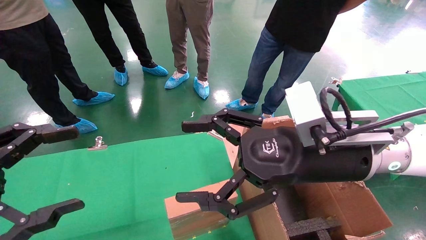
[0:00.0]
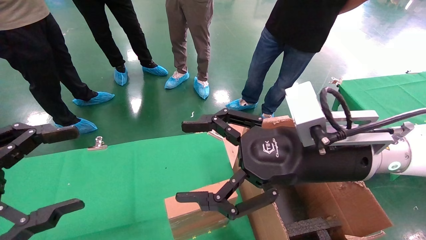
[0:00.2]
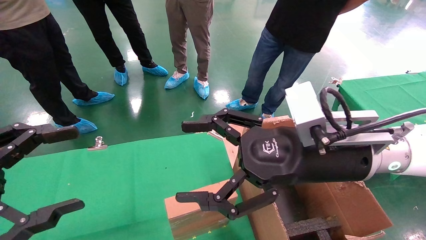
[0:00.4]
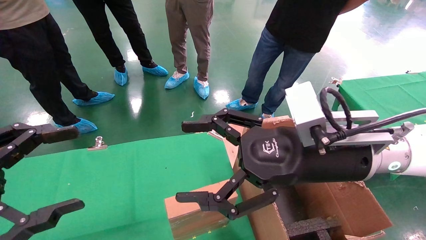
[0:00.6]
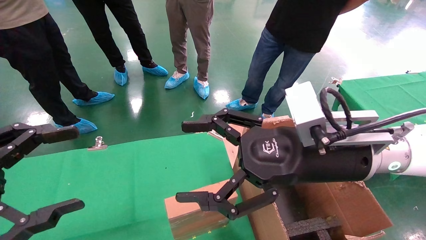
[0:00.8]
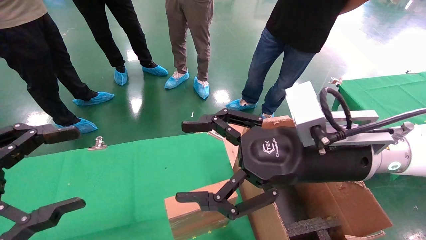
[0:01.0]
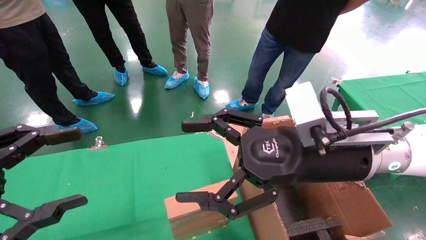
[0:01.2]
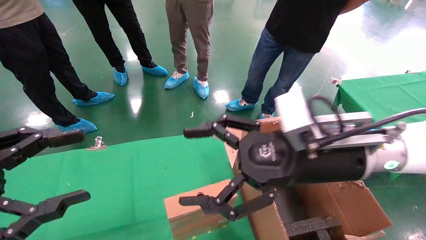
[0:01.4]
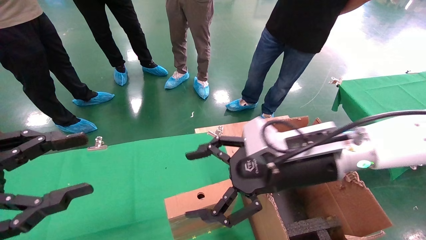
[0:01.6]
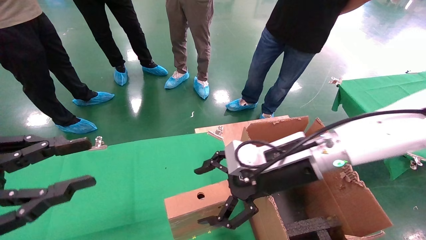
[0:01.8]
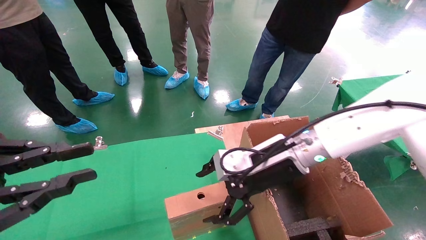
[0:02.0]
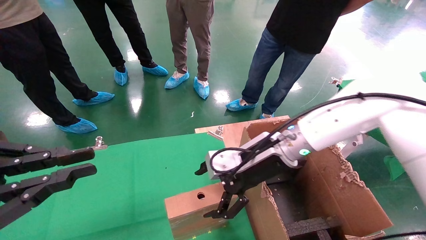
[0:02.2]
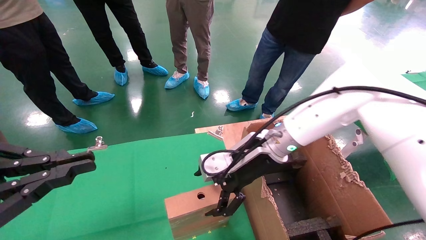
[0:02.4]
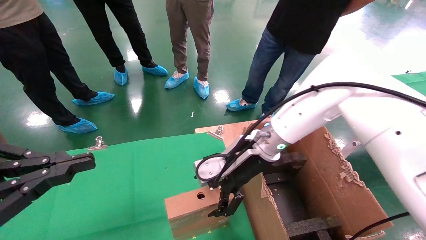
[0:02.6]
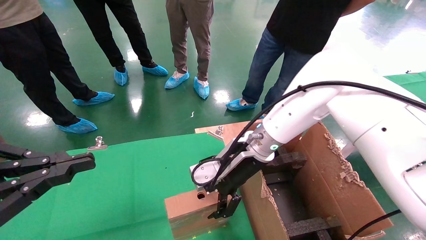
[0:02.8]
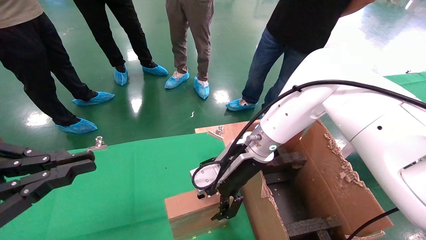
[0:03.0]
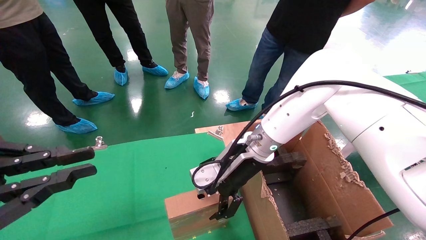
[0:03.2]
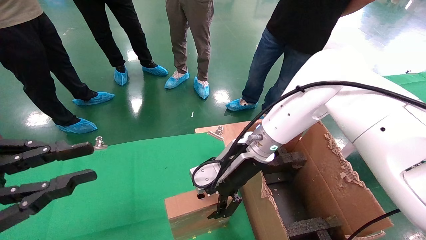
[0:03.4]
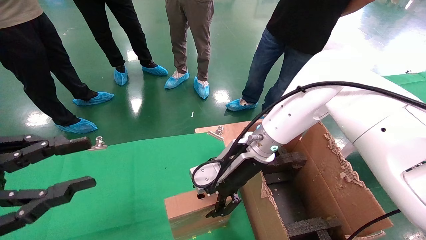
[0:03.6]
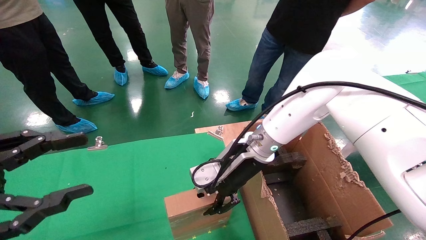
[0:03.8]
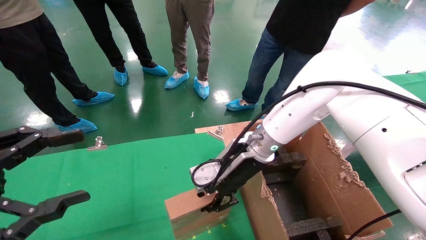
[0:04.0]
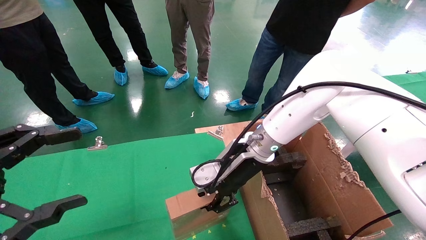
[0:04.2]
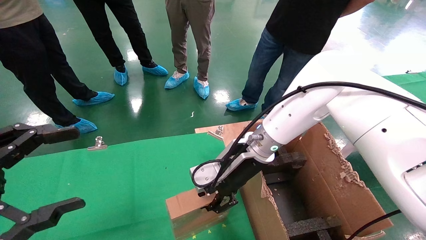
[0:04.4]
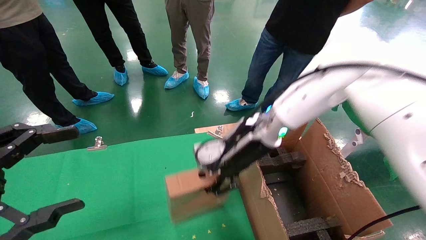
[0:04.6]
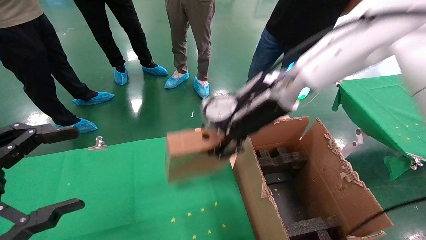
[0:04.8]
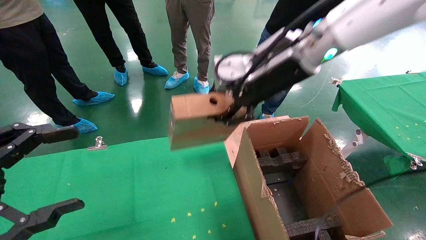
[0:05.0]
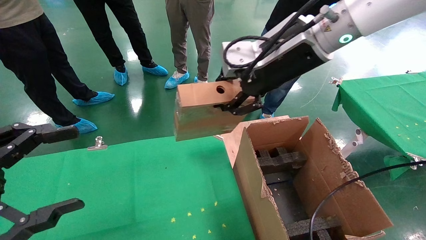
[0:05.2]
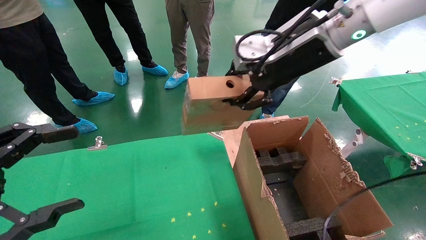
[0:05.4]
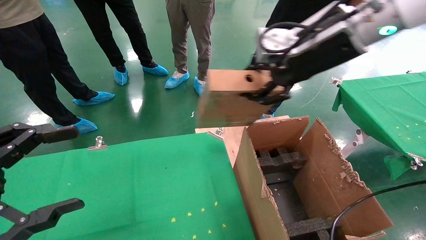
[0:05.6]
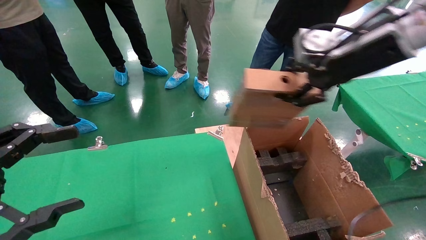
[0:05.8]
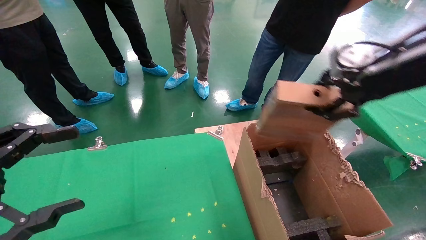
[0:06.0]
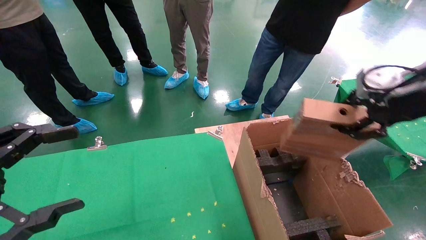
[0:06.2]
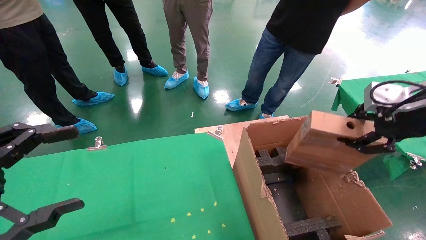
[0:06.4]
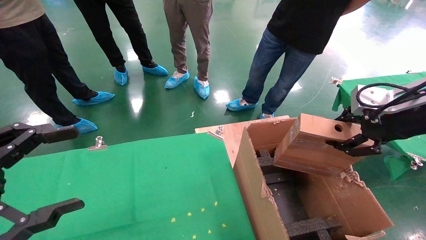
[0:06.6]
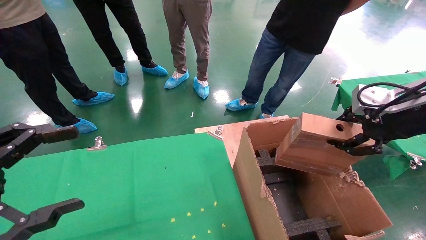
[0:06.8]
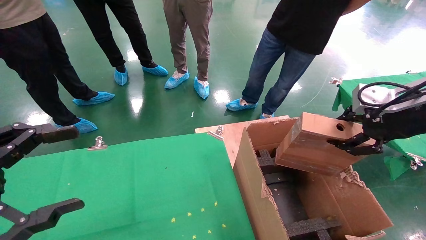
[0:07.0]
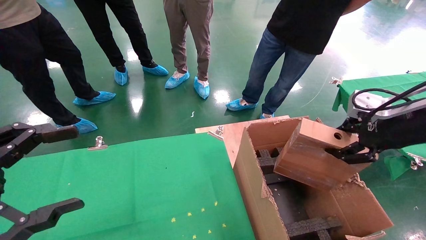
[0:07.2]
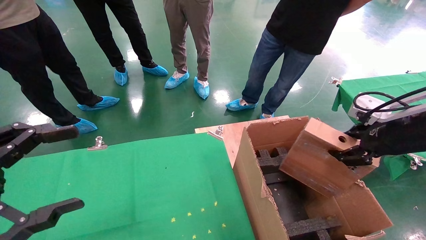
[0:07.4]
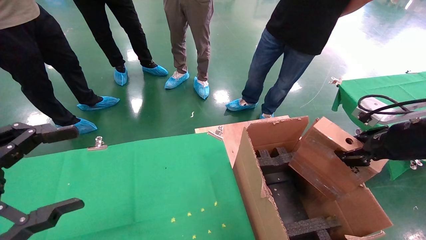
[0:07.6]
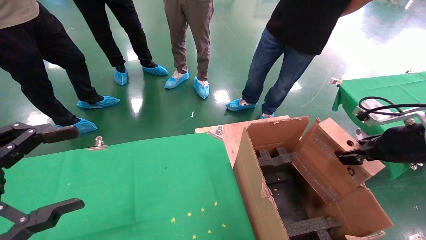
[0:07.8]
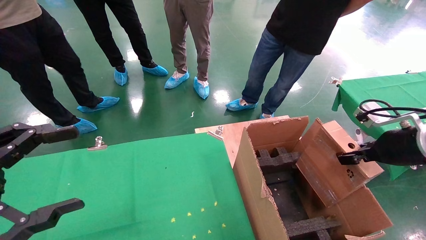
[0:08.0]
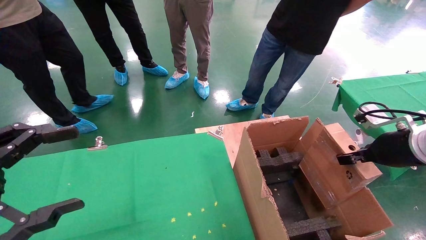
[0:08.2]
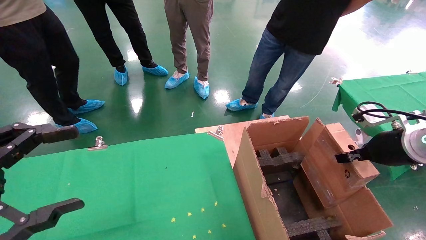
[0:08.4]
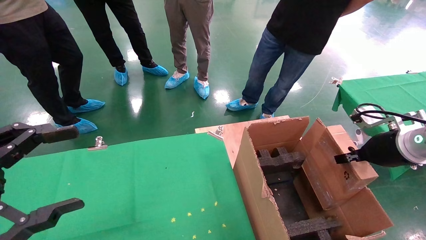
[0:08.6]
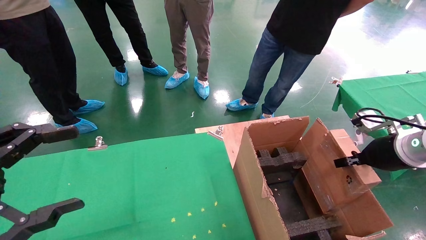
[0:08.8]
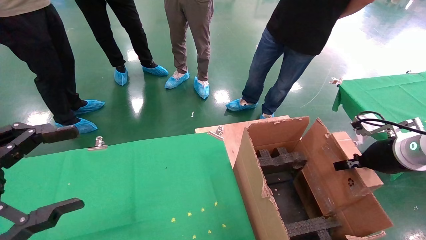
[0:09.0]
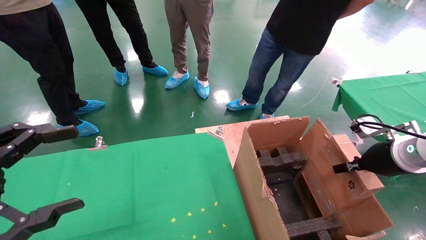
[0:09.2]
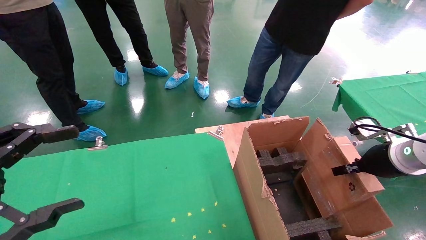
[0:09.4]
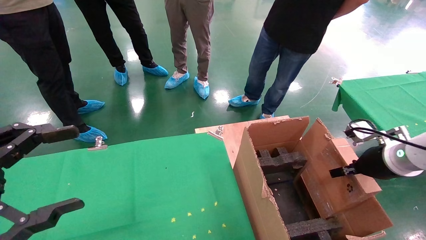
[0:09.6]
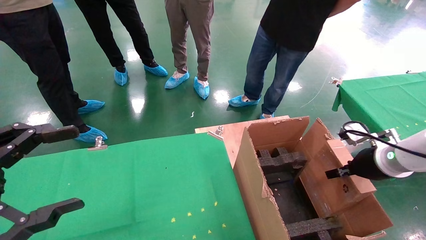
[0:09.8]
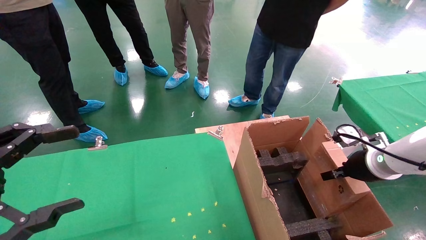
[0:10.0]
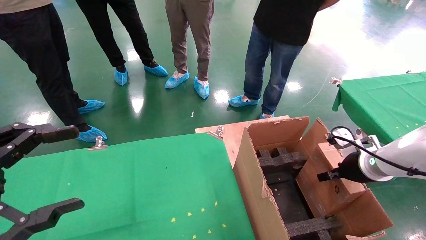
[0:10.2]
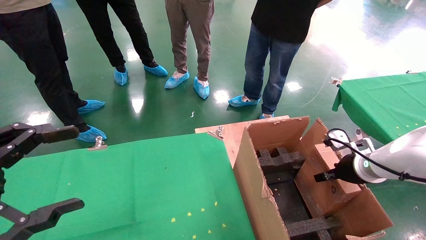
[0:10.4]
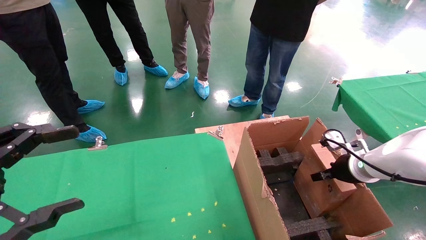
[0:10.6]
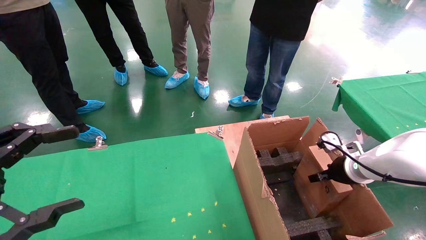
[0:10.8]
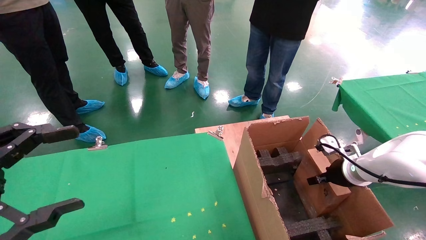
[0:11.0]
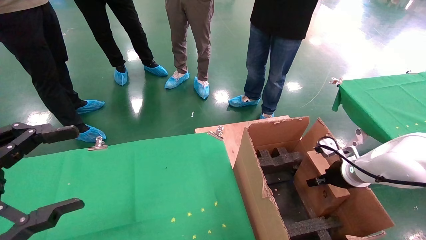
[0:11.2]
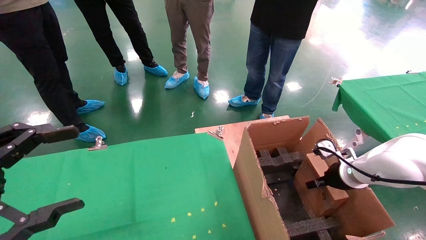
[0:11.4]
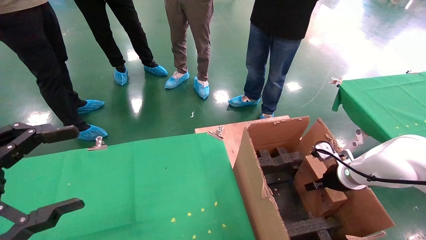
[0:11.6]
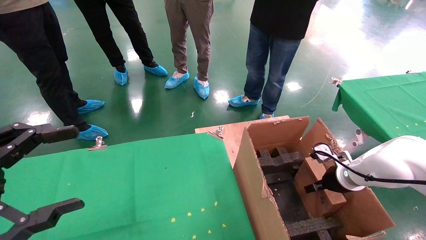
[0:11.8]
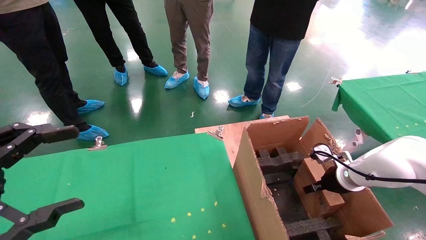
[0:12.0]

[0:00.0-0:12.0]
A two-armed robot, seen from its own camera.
Task of the whole recording: using a robotic arm to pick up a cardboard box and palace it the carton.
Step, 0:01.6 to 0:04.0: Pick up the mouse and the power cord paper box.
0:00.0 to 0:01.6: The right gripper shifts by approximately 5 cm.
0:01.6 to 0:03.0: The left gripper closes its fingers, while the right gripper moves forward and to the left, some 10 cm.
0:03.0 to 0:04.4: The left gripper opens its fingers. Meanwhile the right gripper closes its fingers.
0:04.4 to 0:06.0: The right gripper moves to the right, upward and backward, some 30 cm.
0:06.0 to 0:07.6: The right gripper goes roughly 15 cm downward and to the right.
0:07.6 to 0:09.0: The right gripper shifts approximately 5 cm downward.
0:09.0 to 0:10.4: The right gripper heads downward and forward, covering about 10 cm.
0:10.4 to 0:12.0: The right gripper shifts about 5 cm downward.

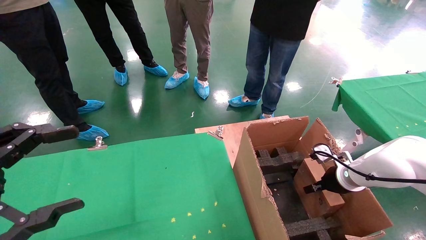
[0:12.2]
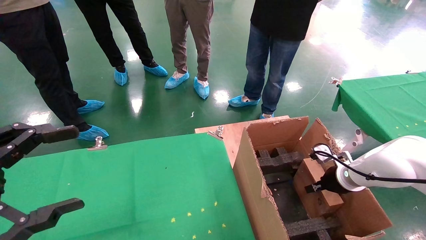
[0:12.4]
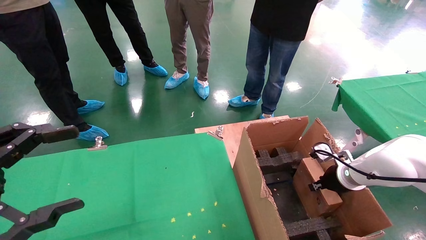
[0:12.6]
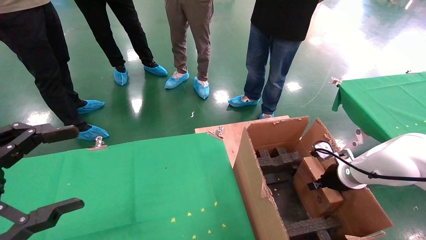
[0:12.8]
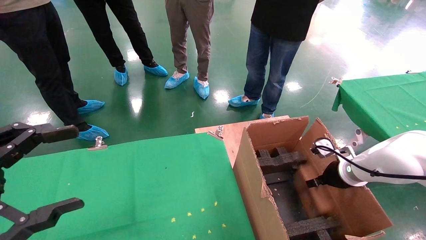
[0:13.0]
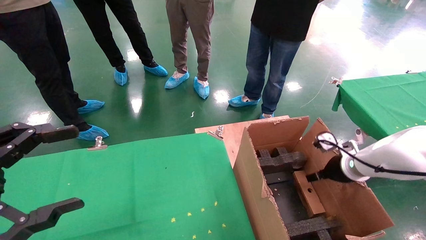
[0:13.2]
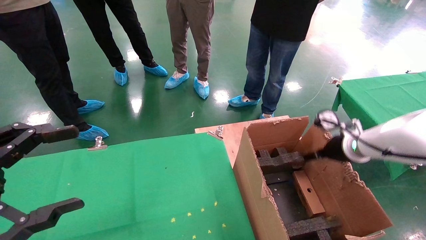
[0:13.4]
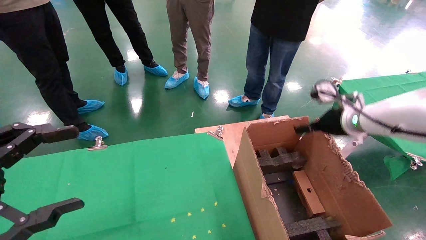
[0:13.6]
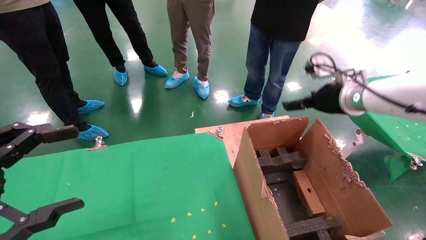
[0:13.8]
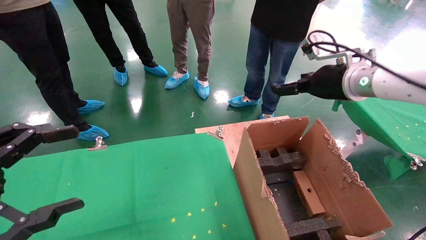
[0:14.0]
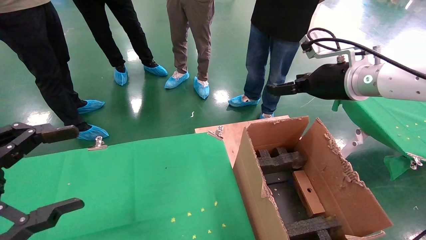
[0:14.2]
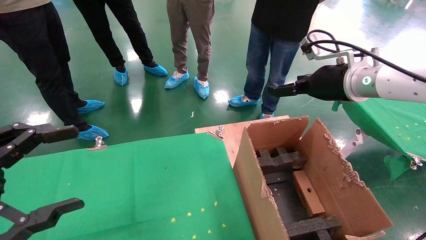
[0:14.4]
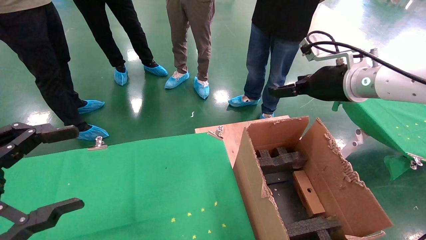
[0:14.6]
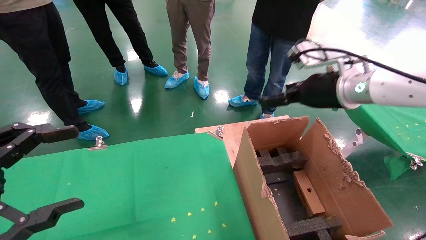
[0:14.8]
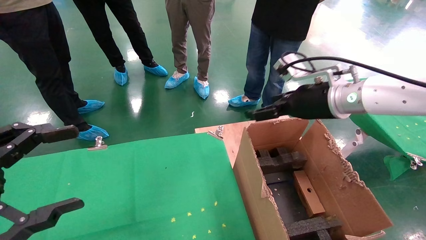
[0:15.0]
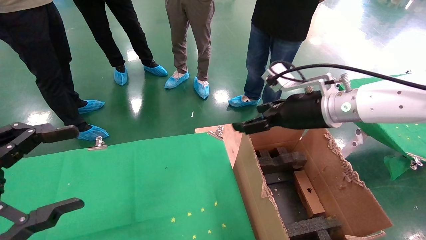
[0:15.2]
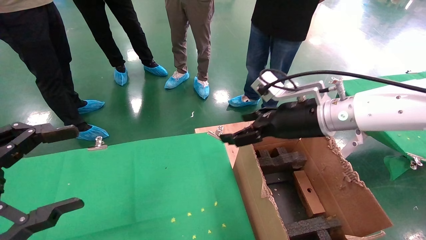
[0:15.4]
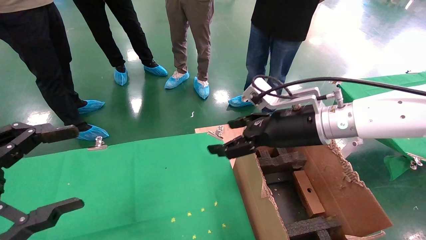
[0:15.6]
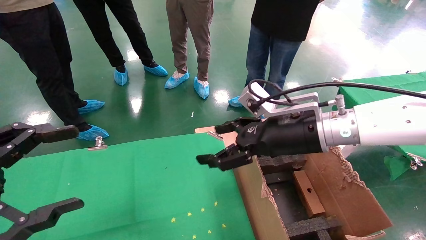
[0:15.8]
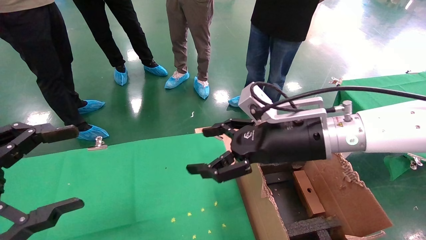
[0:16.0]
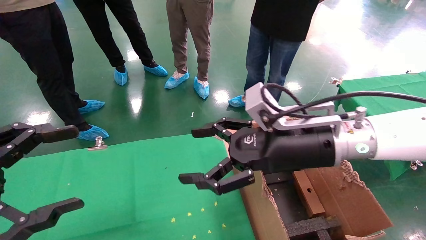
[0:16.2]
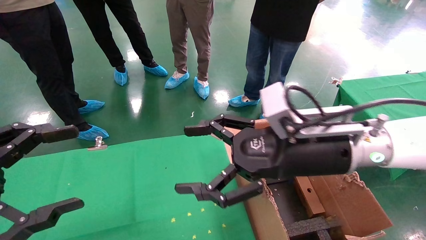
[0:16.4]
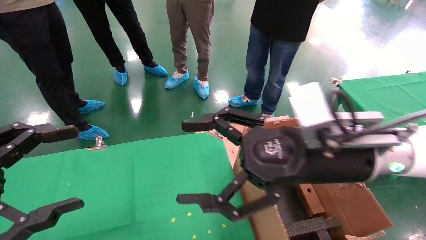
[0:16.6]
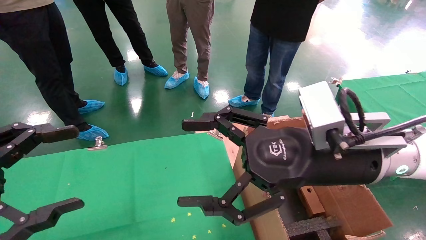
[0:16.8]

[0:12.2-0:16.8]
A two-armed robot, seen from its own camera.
Task of the whole recording: using a robotic arm to pick up a cardboard box and palace it the carton.
0:12.2 to 0:13.8: The right gripper heads upward, covering about 20 cm, and opens.
0:13.8 to 0:15.2: The right gripper heads to the left, covering roughly 10 cm.
0:15.2 to 0:16.8: The right gripper travels backward and to the left by about 15 cm.
